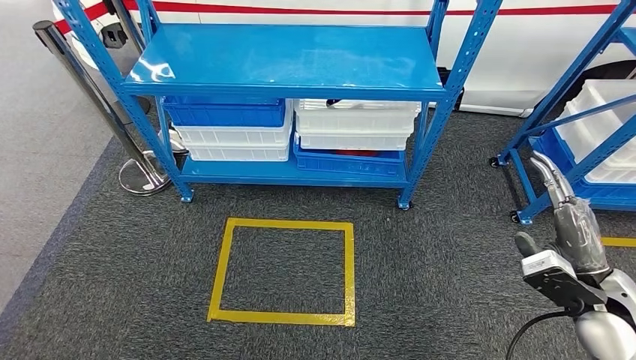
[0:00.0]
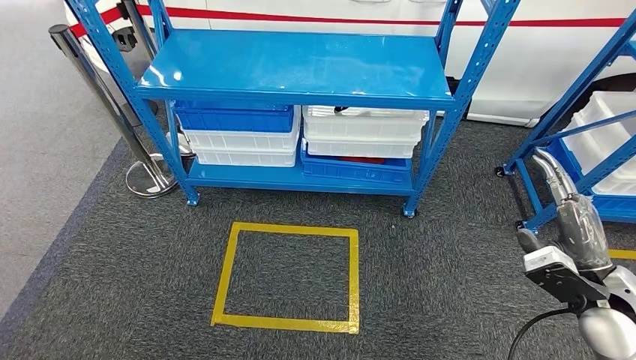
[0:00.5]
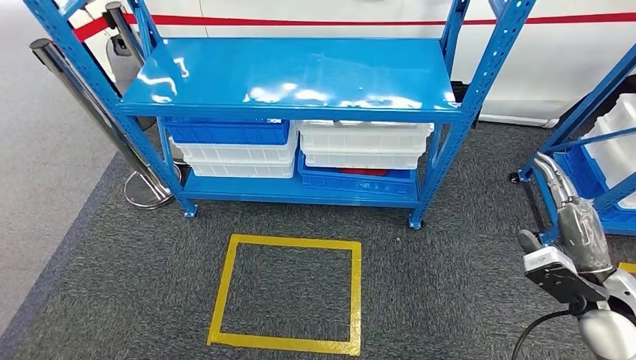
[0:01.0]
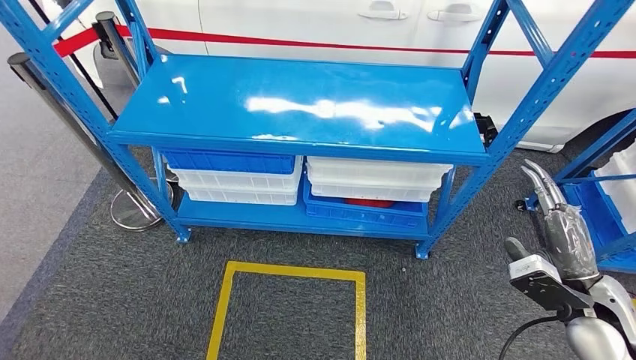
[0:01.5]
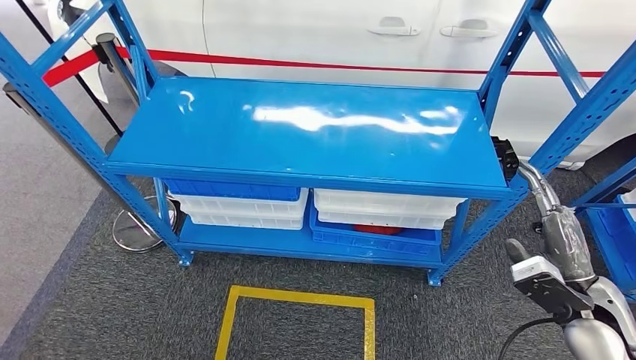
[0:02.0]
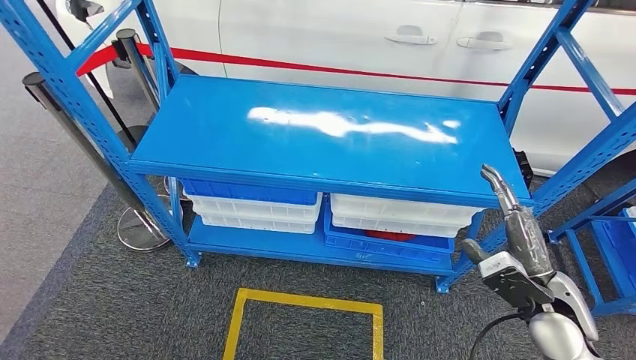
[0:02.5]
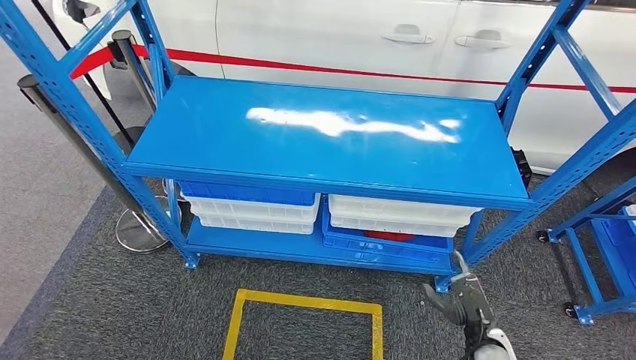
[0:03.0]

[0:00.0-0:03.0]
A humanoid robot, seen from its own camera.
Step, 0:00.0 to 0:03.0: Move to the initial position of the shelf.
